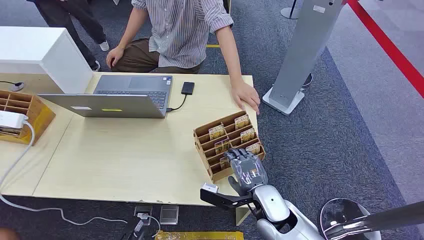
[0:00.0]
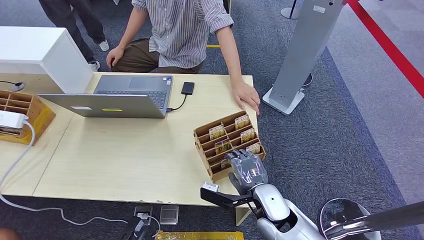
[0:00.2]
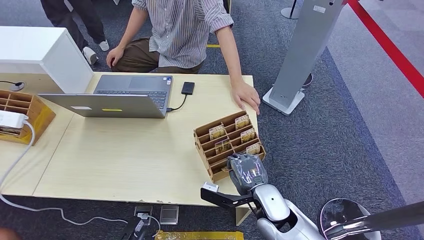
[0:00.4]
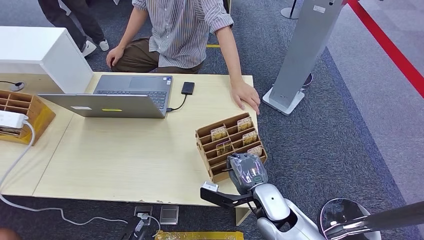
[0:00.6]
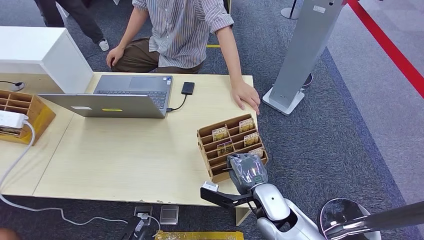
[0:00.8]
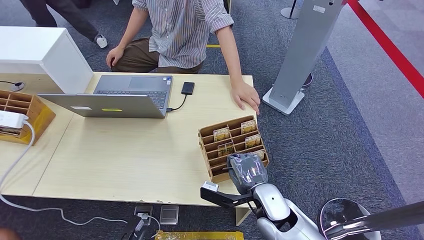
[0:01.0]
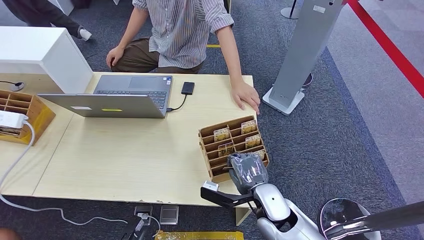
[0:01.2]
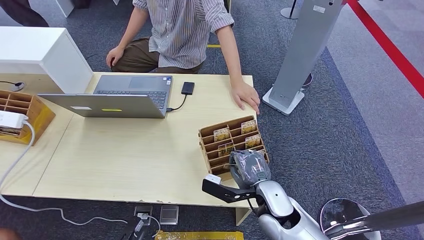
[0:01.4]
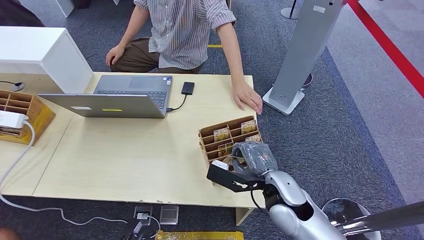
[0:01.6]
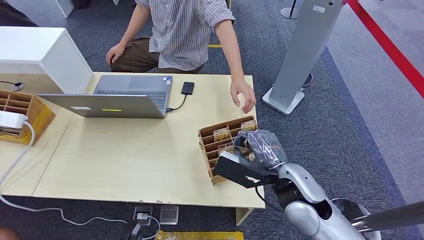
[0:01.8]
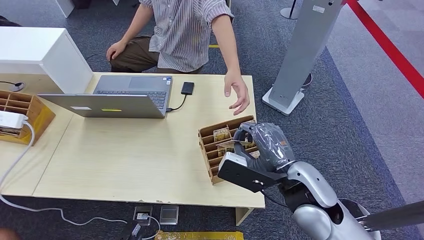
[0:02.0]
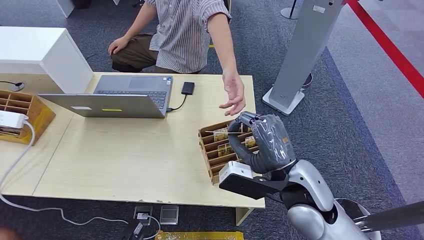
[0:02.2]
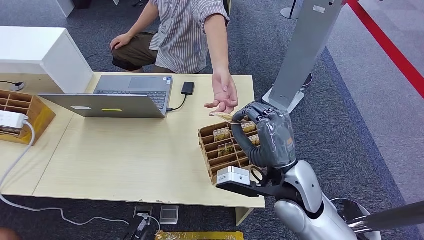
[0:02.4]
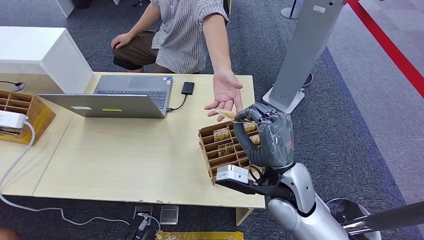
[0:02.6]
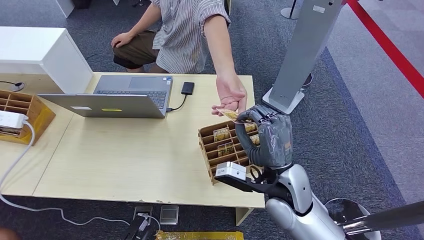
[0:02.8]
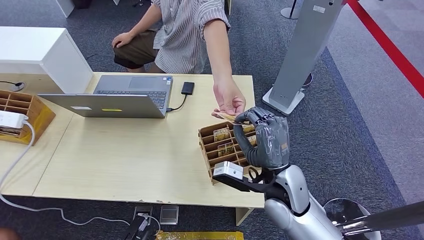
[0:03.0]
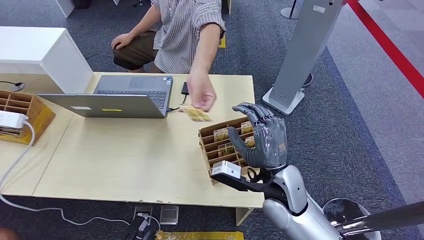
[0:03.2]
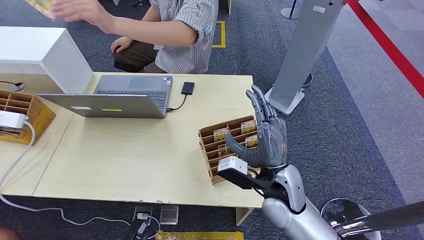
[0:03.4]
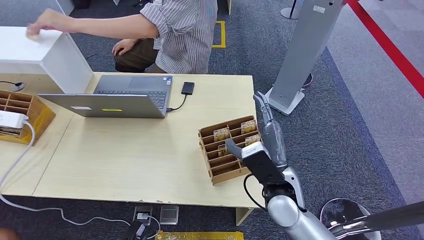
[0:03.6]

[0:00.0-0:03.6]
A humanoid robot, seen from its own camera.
Step, 0:00.0 to 0:01.8: Pick up the key card from the card box.
Step, 0:02.8 to 0:03.6: Hand the key card to the target.
